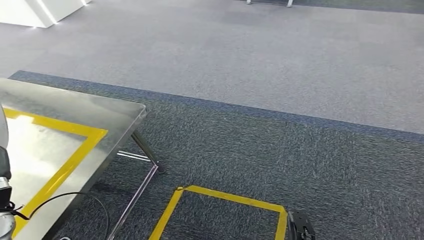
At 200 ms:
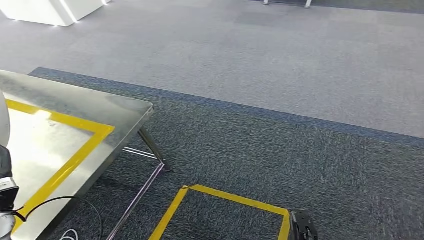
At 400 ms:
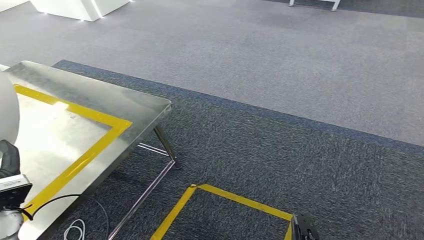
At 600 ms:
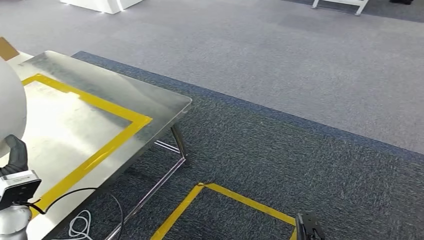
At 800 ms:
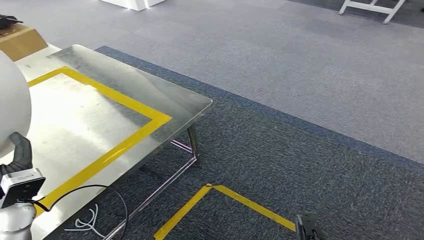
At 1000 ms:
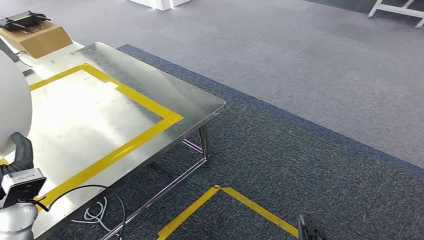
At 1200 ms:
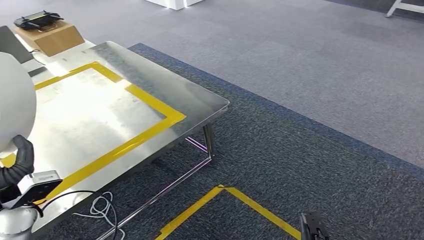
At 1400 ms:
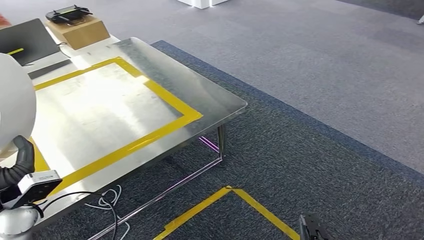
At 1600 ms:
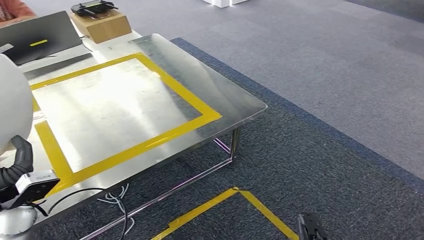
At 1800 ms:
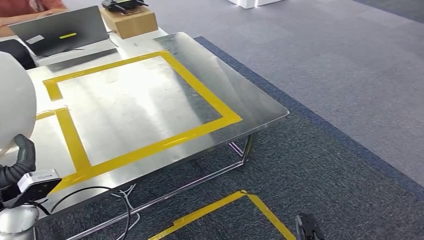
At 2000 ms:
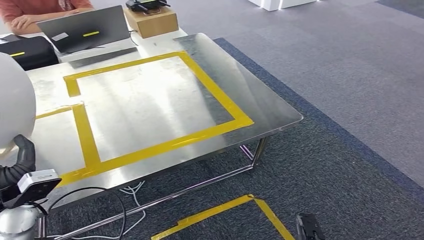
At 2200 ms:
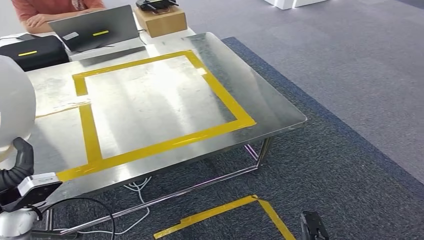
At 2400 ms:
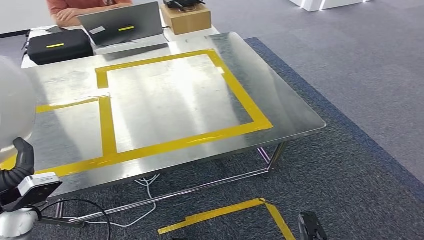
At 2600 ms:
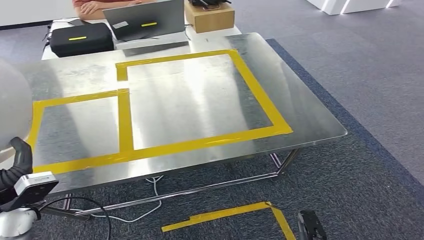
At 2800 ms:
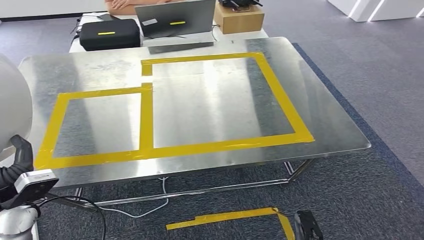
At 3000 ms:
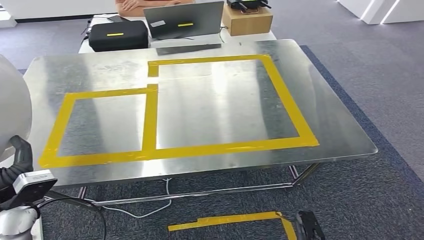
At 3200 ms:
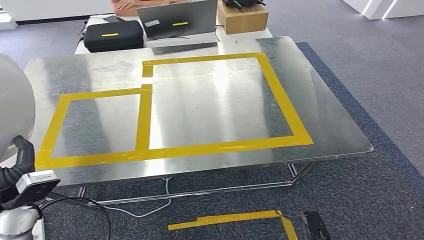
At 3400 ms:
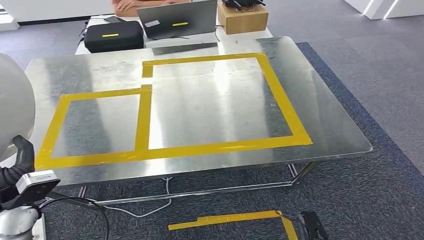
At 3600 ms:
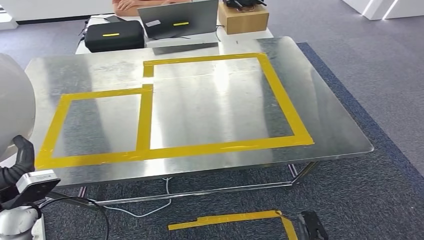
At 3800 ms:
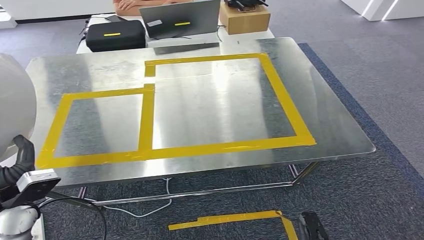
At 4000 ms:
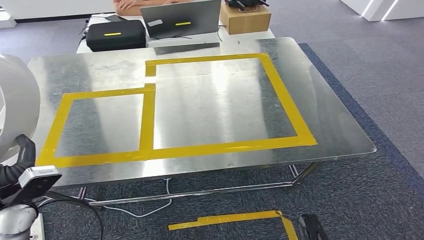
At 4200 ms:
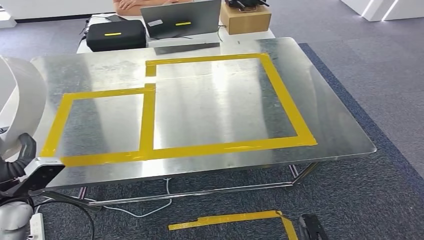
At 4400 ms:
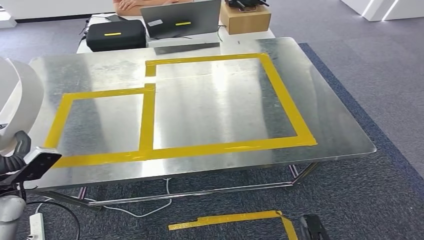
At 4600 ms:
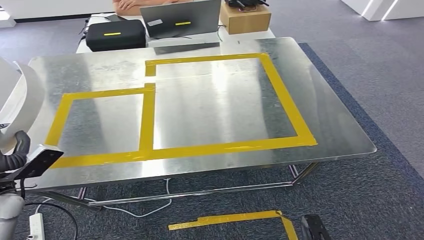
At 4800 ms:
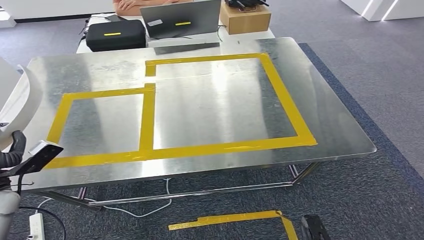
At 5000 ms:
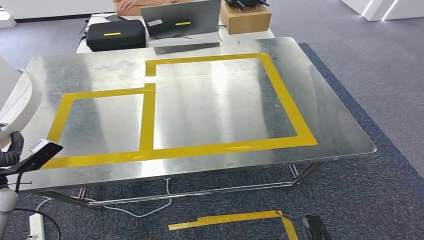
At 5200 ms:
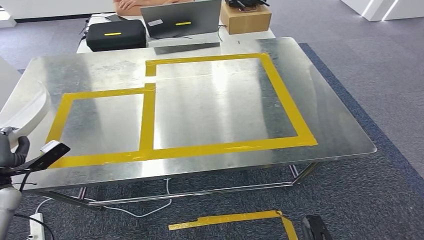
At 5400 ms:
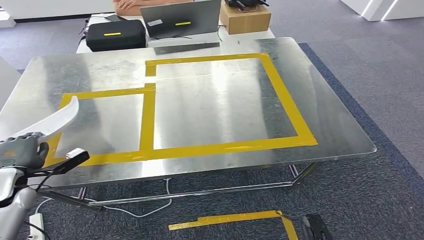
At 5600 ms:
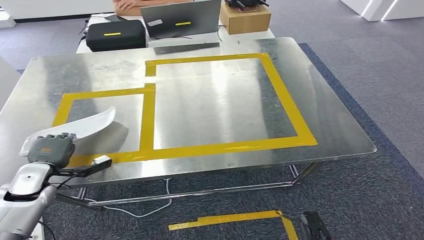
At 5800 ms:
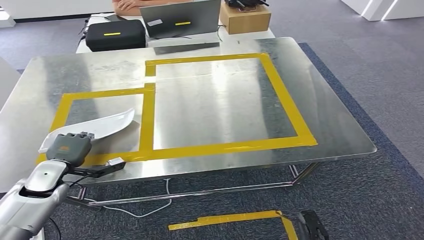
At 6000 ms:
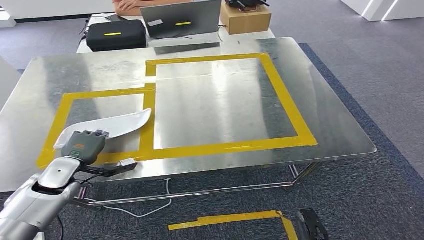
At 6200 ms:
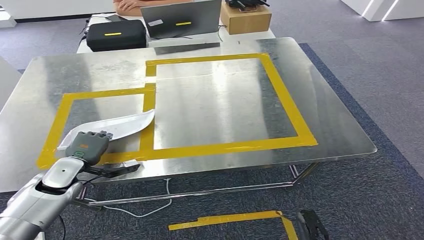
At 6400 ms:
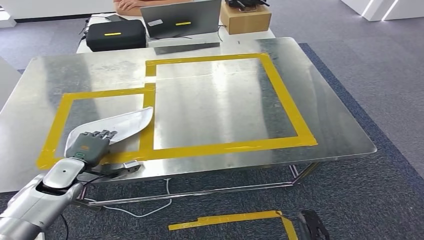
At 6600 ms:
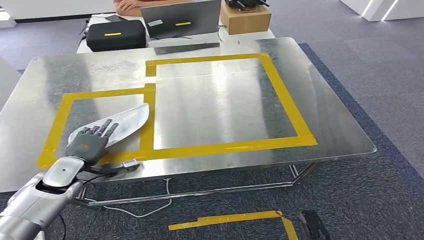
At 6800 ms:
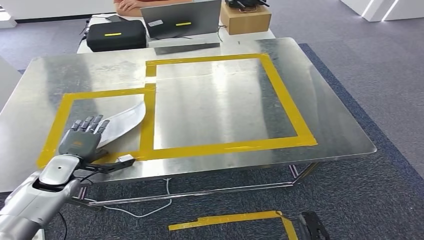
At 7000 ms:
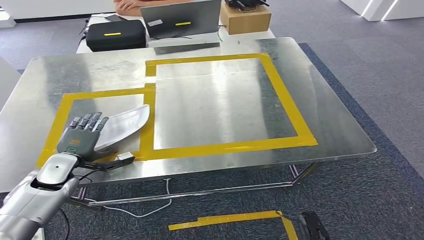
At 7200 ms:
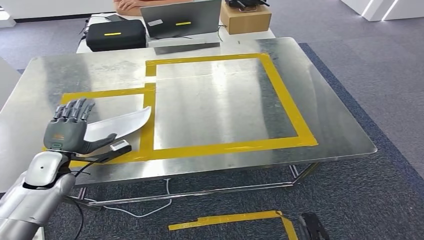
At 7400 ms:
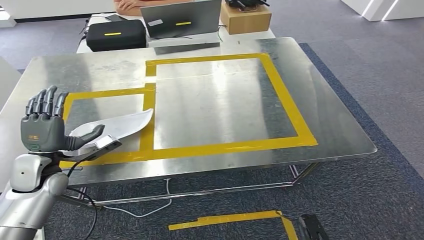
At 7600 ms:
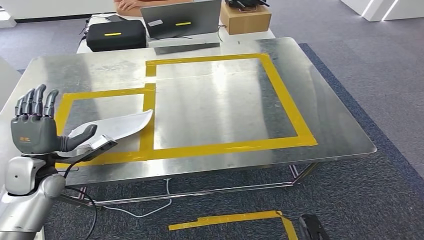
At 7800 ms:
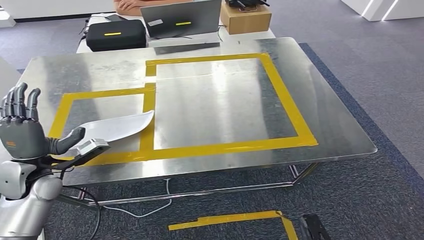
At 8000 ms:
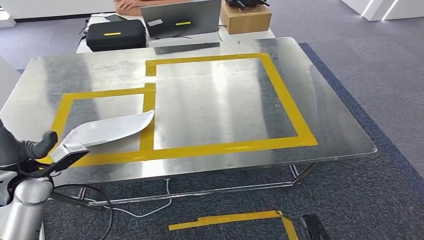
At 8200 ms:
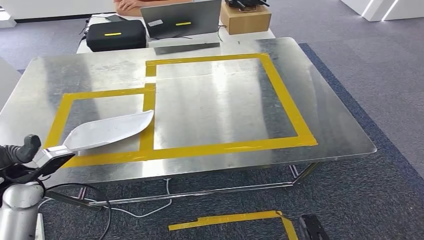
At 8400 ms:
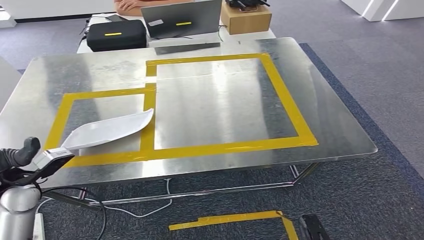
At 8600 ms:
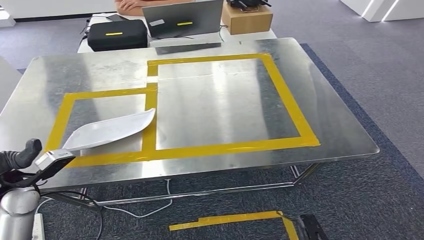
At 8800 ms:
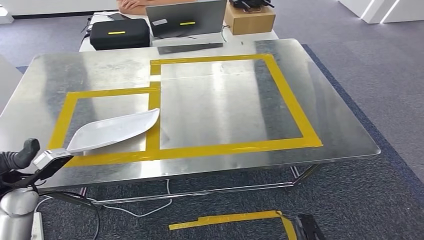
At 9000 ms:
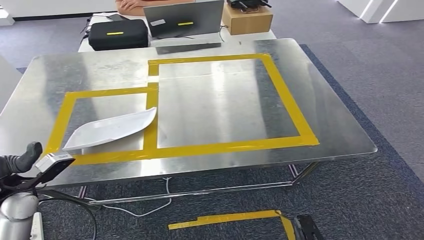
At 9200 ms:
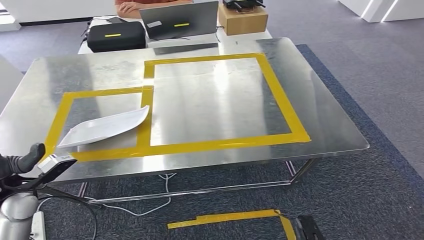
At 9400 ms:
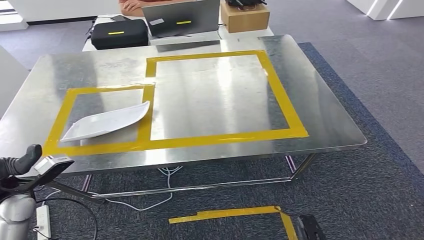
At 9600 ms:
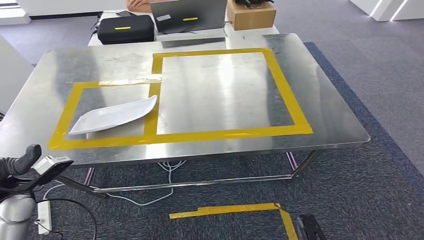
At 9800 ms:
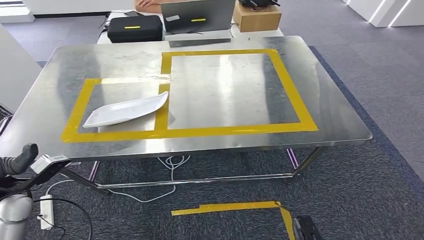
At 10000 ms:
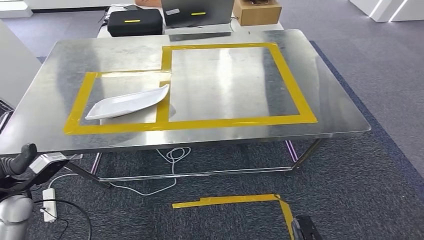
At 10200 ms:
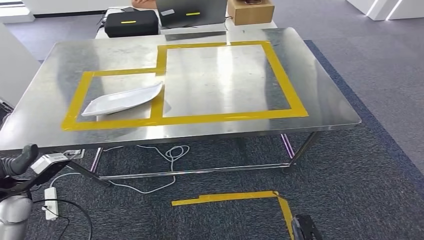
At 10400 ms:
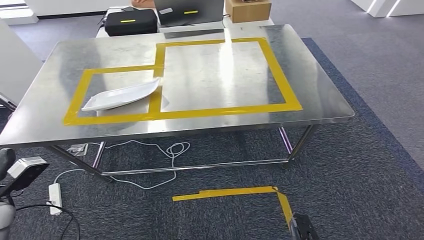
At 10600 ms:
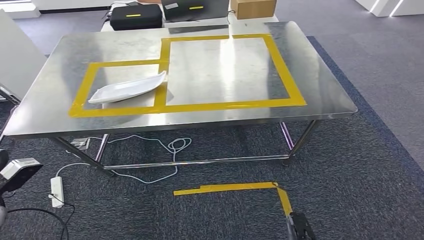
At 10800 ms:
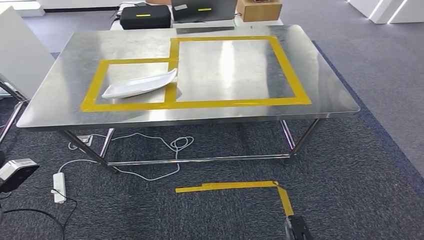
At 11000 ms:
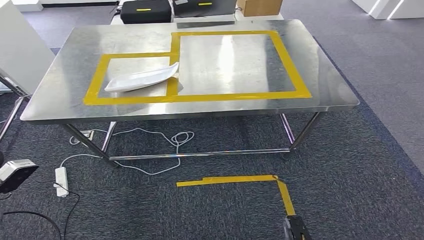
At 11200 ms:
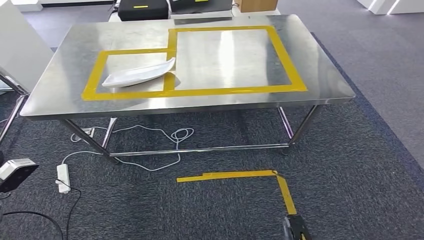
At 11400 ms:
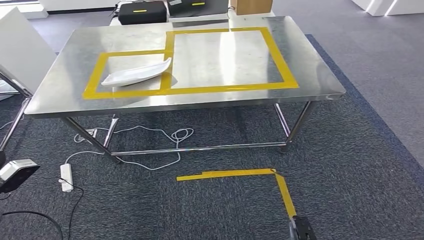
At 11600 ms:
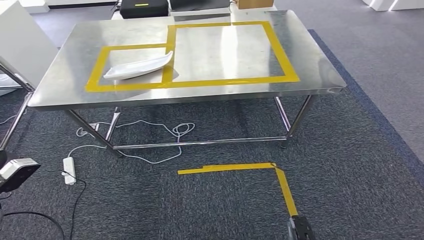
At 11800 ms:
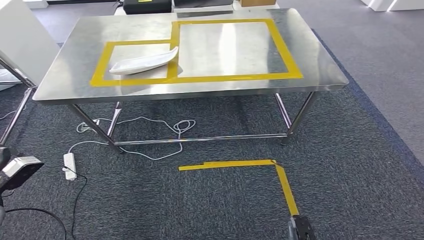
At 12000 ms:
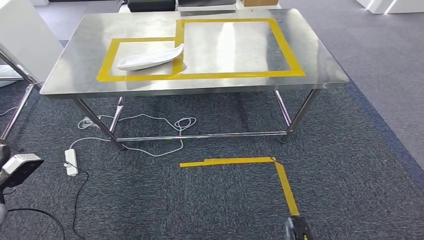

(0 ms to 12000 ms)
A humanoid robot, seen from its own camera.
Step, 0 ms - 2200 ms: Move the small component to the workbench.
3000 ms - 4400 ms: The left hand changes place by about 5 cm.
4400 ms - 6000 ms: The left hand shifts about 10 cm forward, downward and to the right.
6000 ms - 7600 ms: The left hand shifts some 5 cm upward.
7600 ms - 9000 ms: The left hand moves backward, some 5 cm.

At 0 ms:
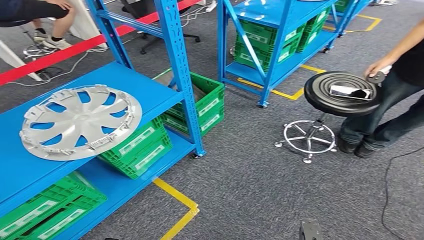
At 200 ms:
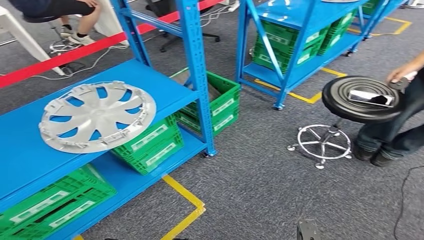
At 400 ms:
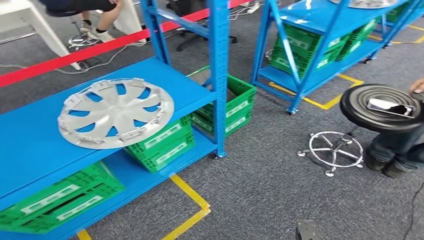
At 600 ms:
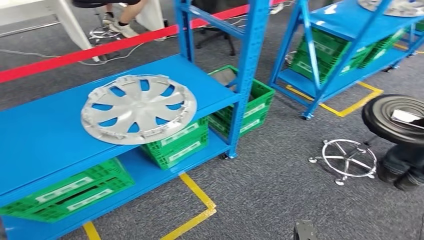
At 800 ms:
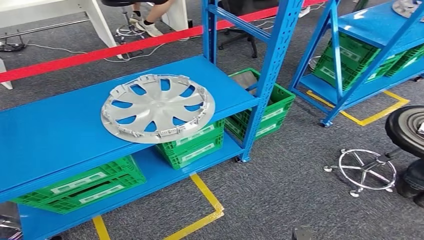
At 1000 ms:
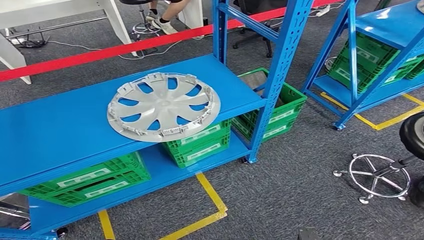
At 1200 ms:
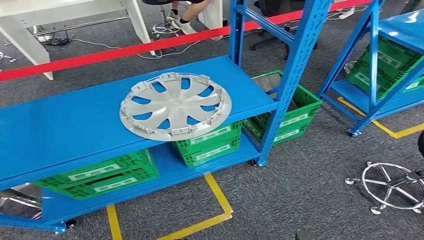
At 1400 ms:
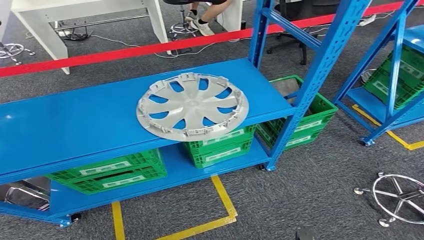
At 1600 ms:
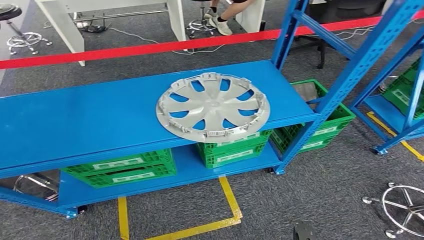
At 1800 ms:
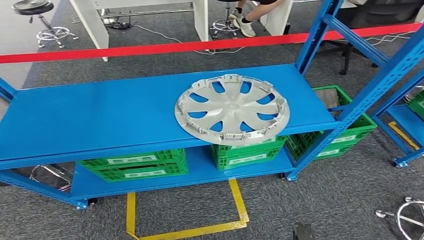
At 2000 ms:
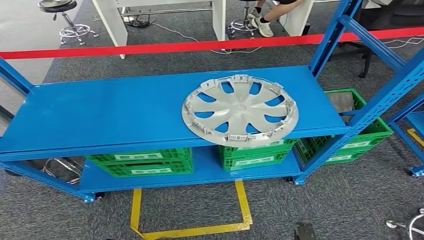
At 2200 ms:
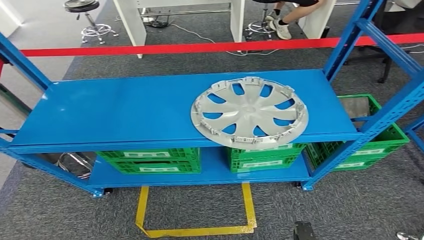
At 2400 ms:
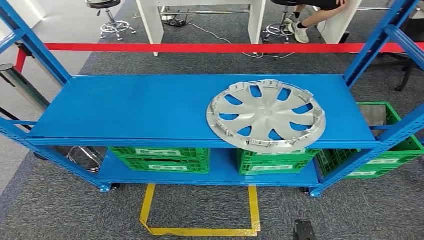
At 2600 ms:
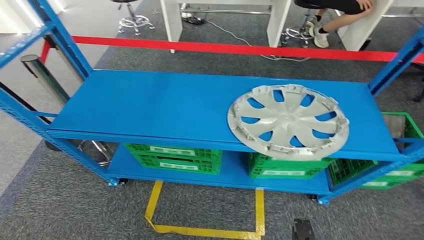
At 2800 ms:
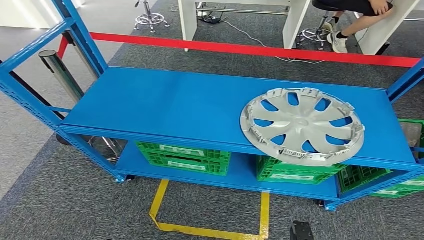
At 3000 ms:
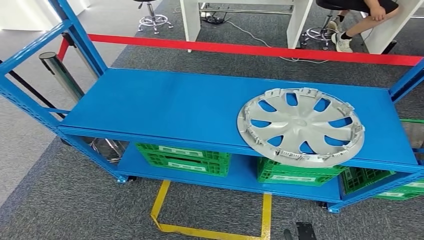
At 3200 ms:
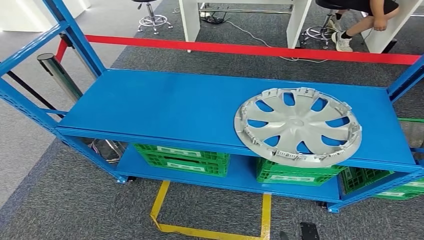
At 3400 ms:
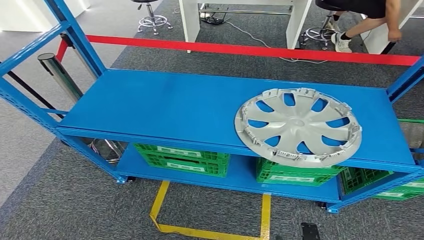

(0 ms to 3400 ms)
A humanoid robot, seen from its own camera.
Step, 0 ms - 3400 ms: Move to the initial position at the workbench.
